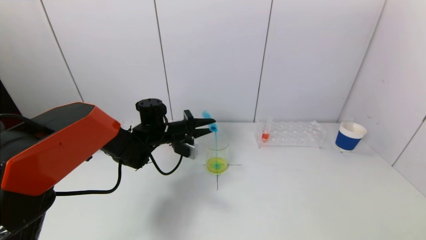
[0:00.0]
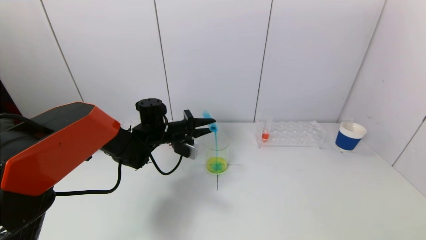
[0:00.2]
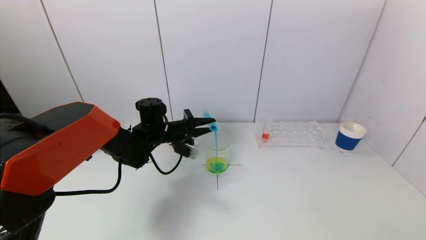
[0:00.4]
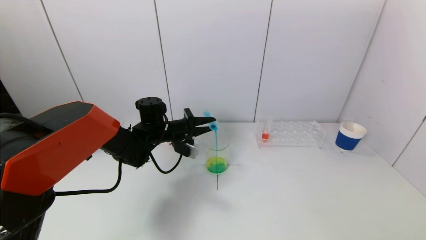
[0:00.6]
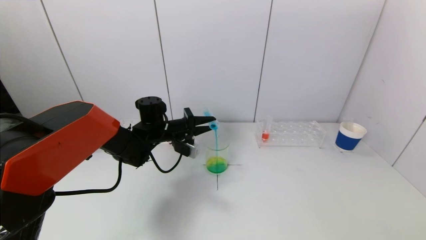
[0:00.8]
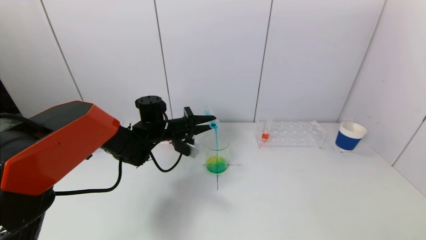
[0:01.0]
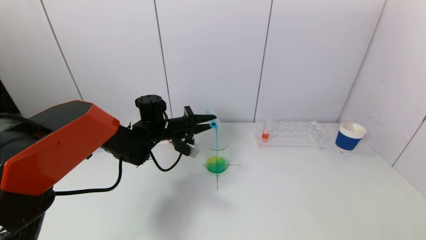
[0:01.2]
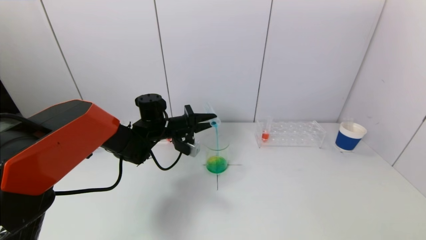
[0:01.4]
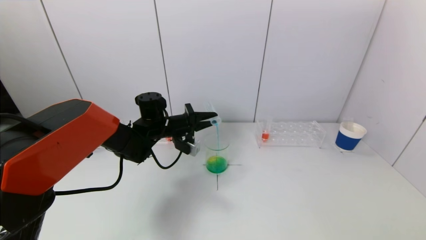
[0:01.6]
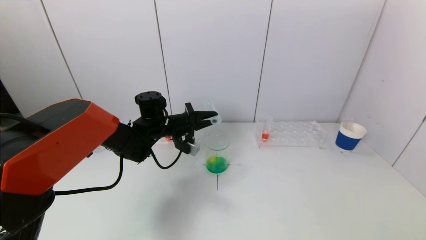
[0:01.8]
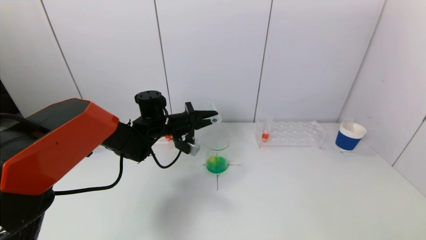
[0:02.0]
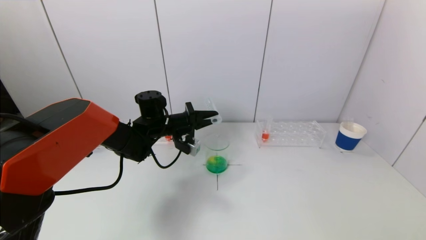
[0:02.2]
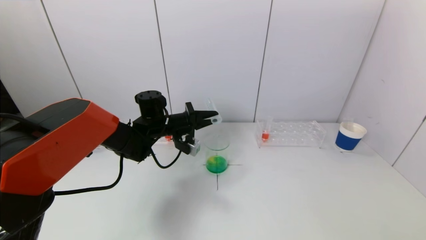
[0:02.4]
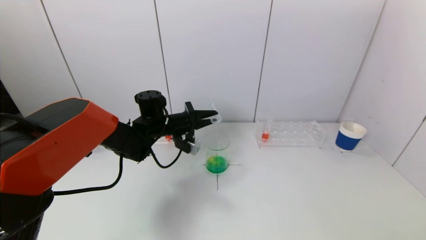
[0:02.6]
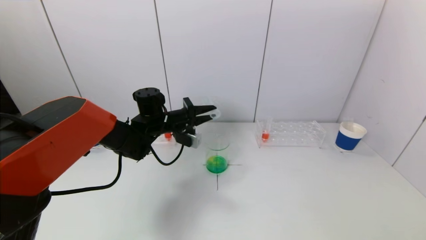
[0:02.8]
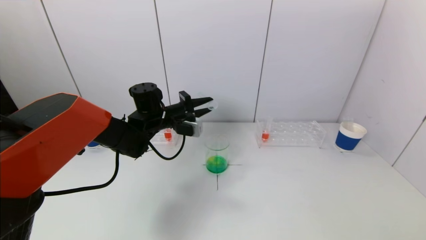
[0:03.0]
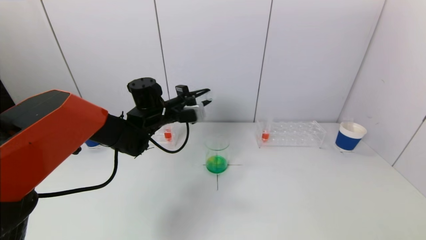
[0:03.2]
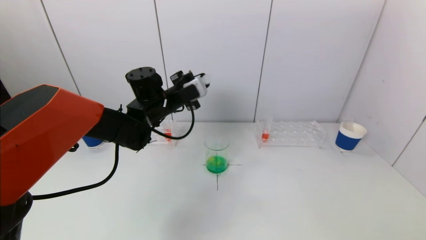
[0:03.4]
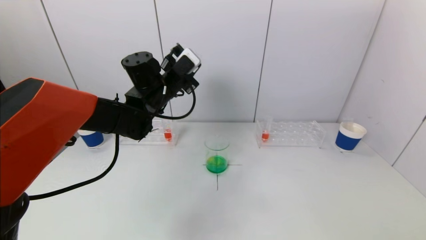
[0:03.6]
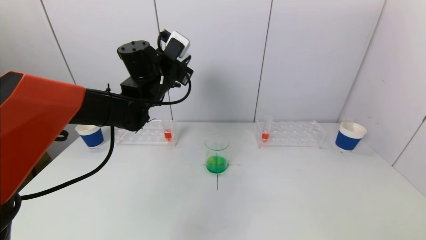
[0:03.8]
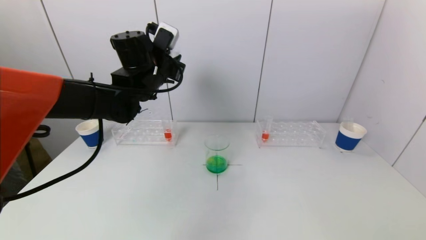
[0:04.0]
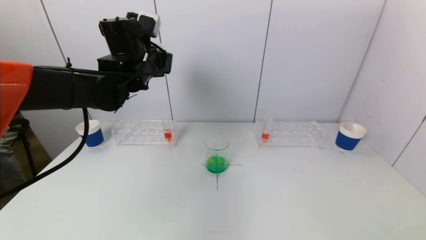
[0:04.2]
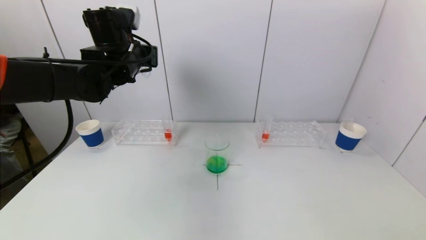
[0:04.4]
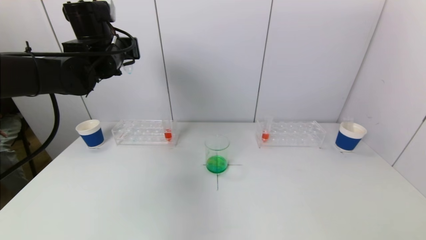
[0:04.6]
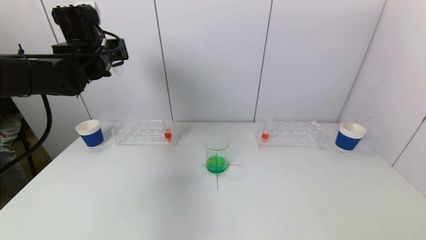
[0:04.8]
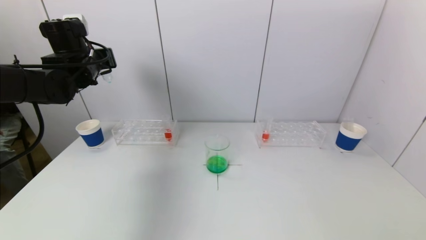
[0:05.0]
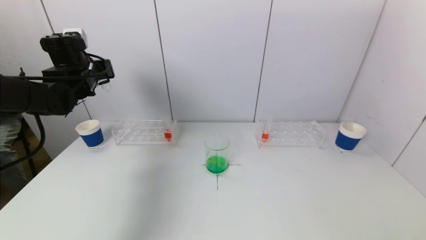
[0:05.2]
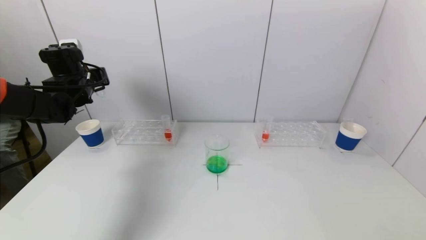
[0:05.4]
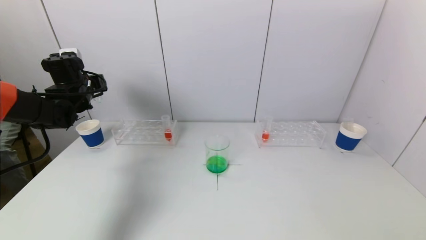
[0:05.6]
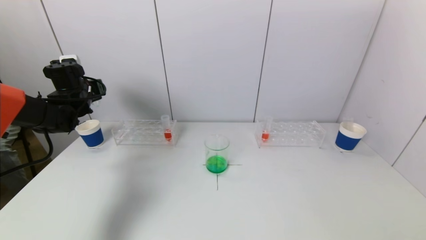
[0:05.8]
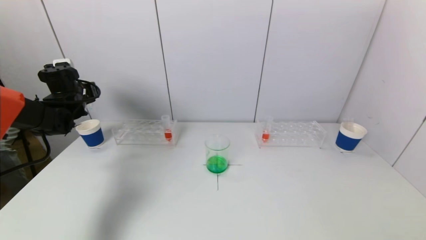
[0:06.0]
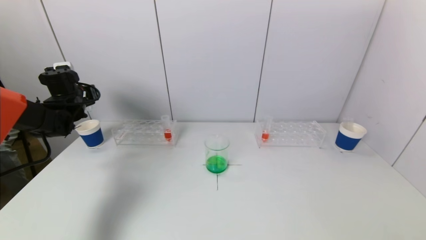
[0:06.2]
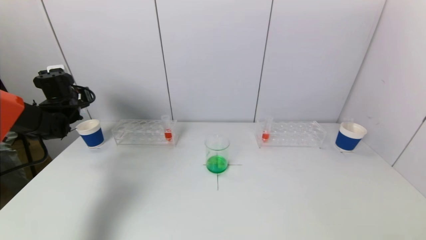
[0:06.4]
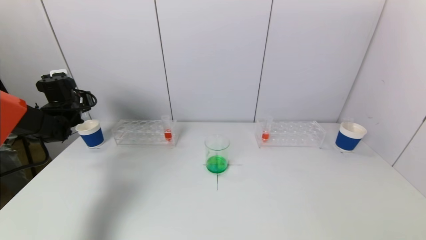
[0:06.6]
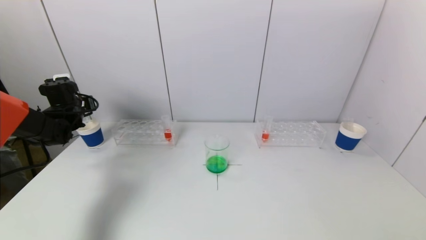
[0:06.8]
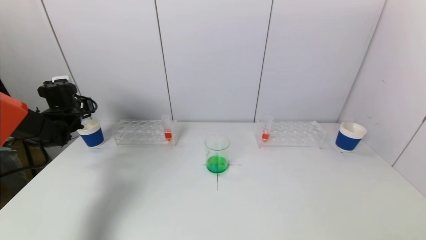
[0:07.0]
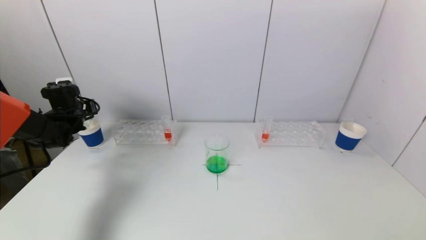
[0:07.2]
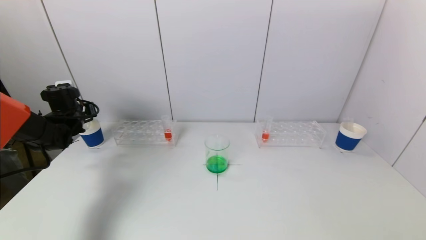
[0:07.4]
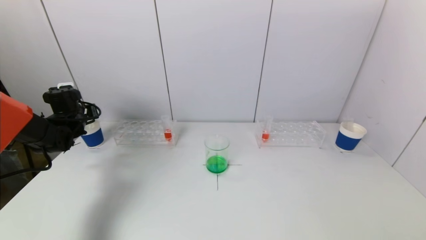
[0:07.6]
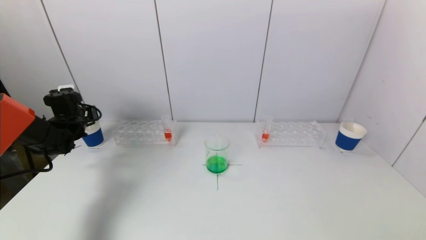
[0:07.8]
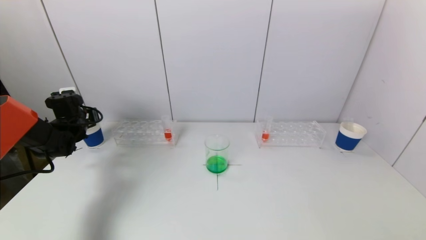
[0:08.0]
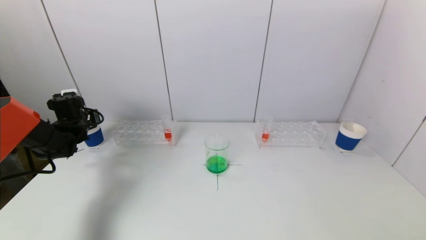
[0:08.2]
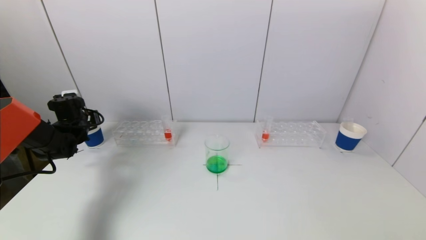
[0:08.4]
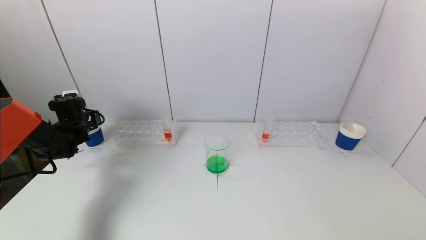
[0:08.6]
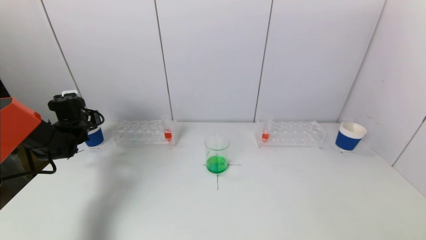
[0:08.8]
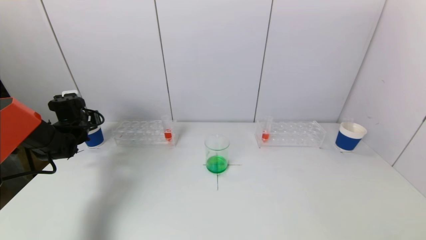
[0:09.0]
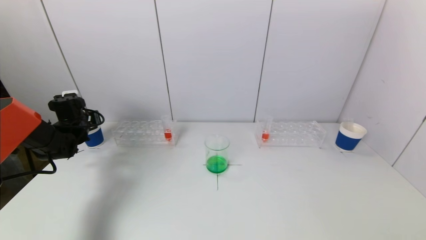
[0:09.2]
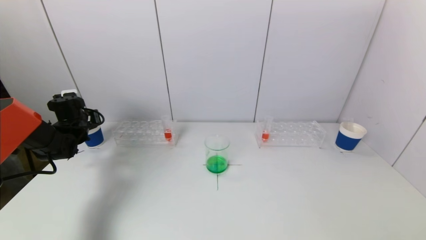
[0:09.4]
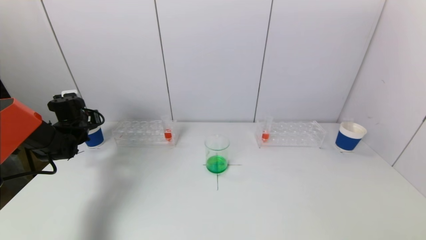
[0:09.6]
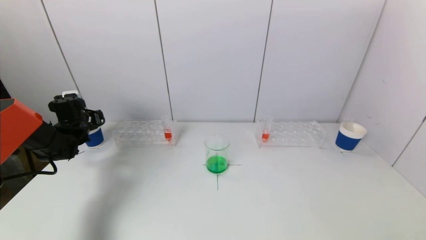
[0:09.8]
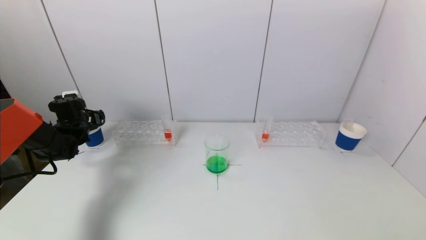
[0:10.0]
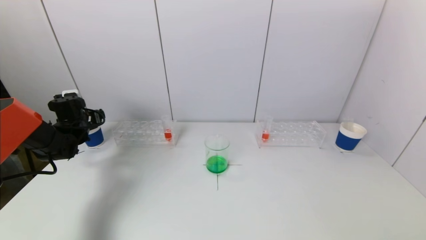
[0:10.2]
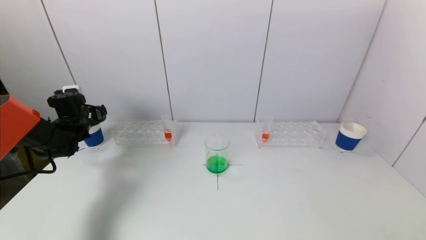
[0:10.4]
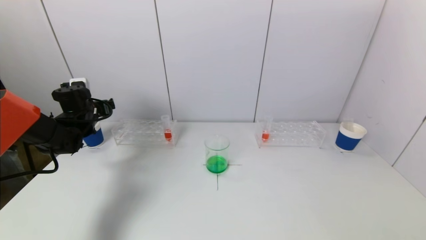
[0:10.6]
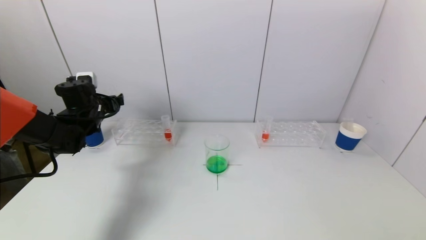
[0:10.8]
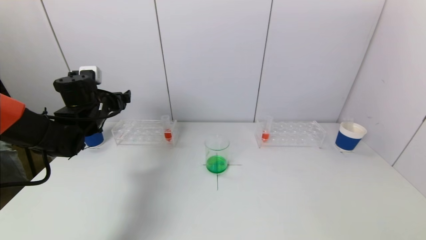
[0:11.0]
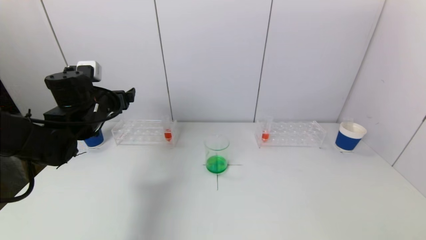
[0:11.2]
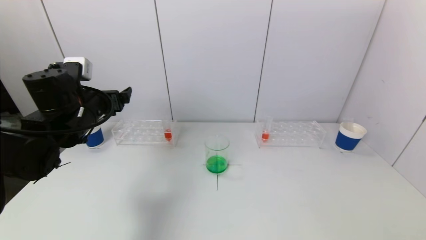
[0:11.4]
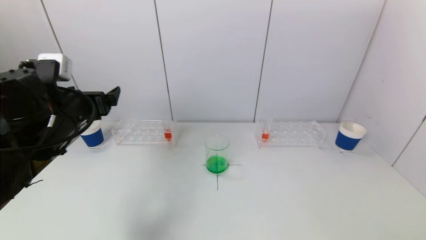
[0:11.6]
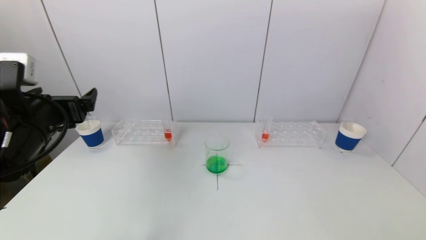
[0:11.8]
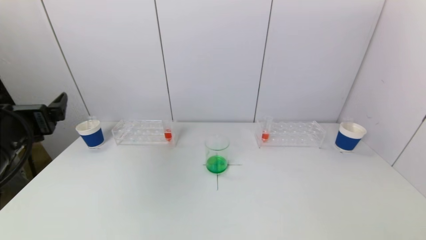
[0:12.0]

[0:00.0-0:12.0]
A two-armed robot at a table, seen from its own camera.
Task of the whole recording: pick up a test tube with pigment on left test tube rack and a test tube with pigment on right test tube rack by grippers and pour them into the beaker.
Step, 0:00.0 to 0:02.0: Pour the blue reagent into the graduated cylinder with the left gripper.
Step, 0:02.2 to 0:09.6: Place the test tube into the paper cup with the left gripper.
0:00.0 to 0:03.0: The grippers stay close to where they were, moving slightly.
0:03.0 to 0:04.4: The left gripper travels upward by about 15 cm.
0:04.4 to 0:06.0: The left gripper moves to the left and downward, roughly 20 cm.
0:06.0 to 0:07.6: The left gripper travels downward by some 5 cm.
0:07.6 to 0:09.0: The grippers stay close to where they were, moving slightly.
0:09.0 to 0:10.4: The left gripper opens its fingers.
0:10.4 to 0:12.0: The left gripper goes approximately 30 cm backward and upward.

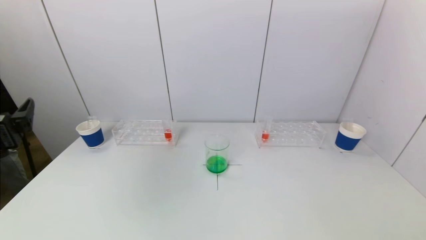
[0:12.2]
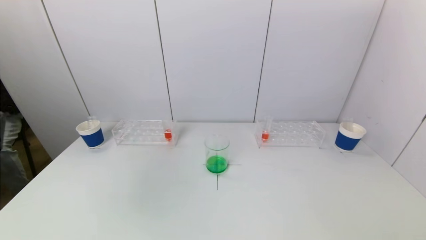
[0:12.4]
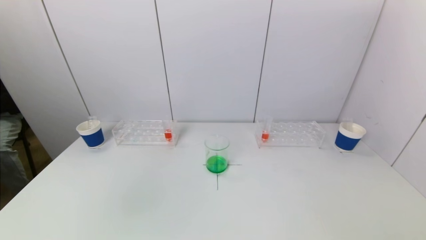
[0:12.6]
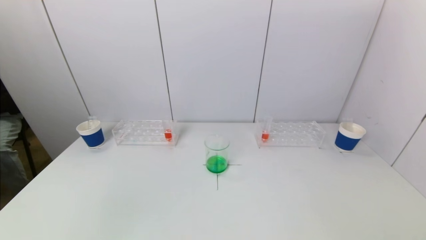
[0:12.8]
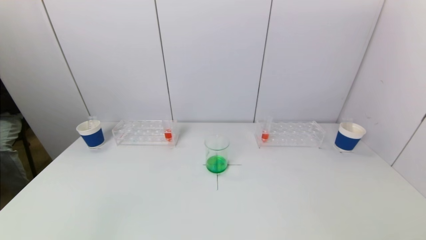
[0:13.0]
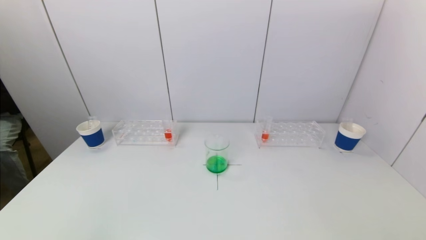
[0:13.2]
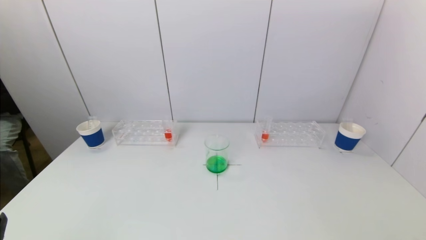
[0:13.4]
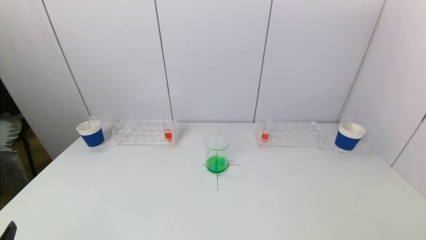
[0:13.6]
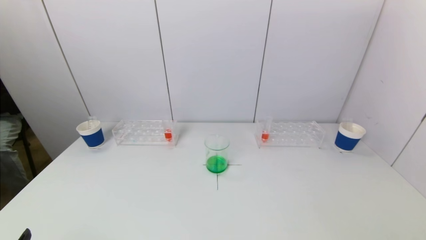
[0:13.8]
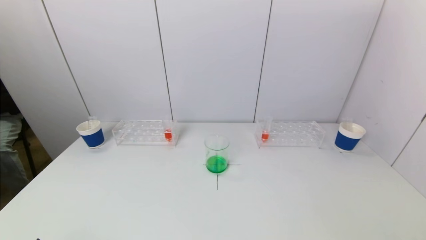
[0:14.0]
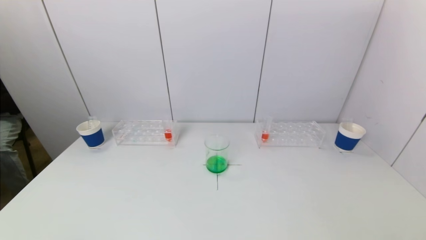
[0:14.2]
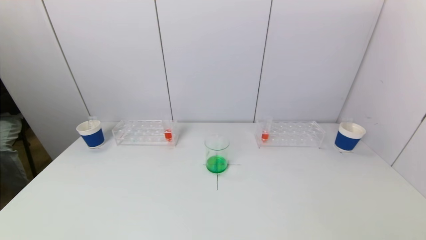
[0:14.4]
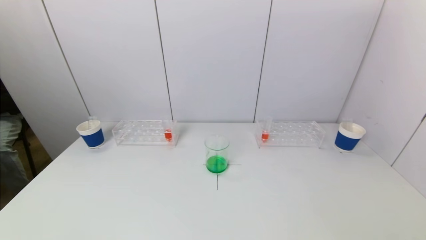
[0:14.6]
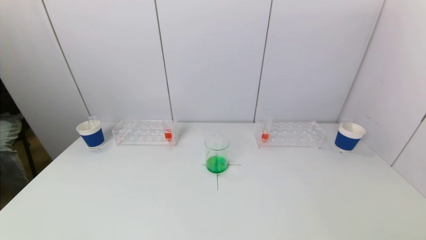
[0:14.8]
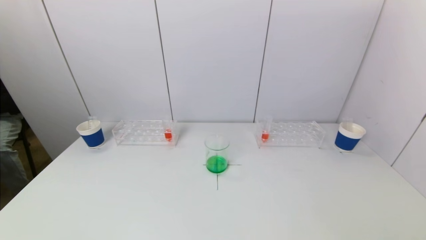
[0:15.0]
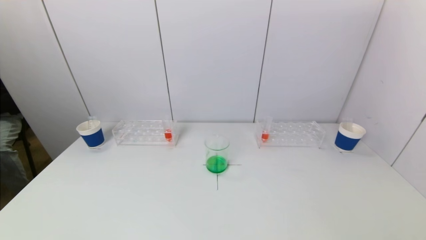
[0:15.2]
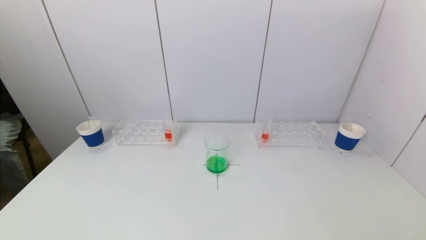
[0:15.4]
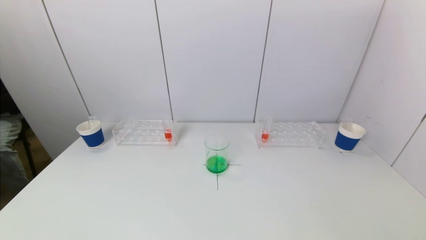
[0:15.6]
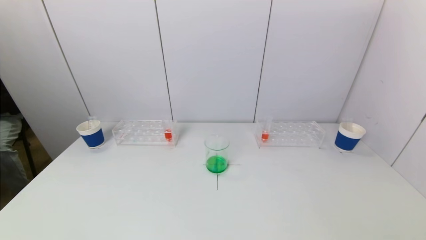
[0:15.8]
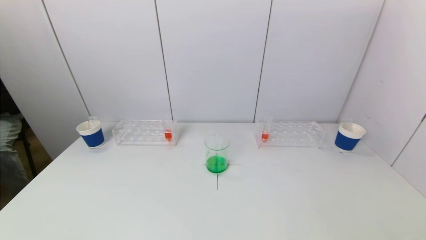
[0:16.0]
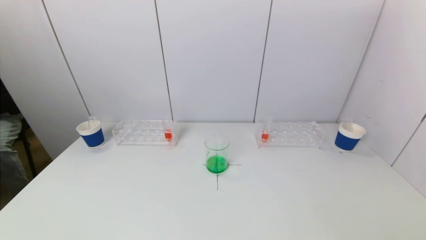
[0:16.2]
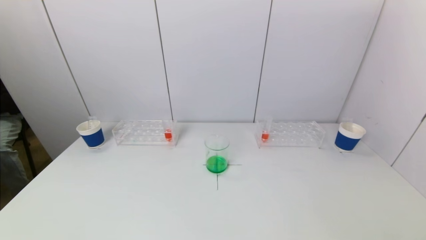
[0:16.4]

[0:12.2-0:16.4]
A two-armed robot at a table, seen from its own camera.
Task of the whole recording: pick up a test tube with pigment on left test tube rack and a test tube with pigment on right test tube rack by grippers and pour them into the beaker.
0:12.2 to 0:13.6: The left gripper goes about 20 cm backward and downward.
0:15.0 to 0:16.4: Both grippers stay about where they are.
